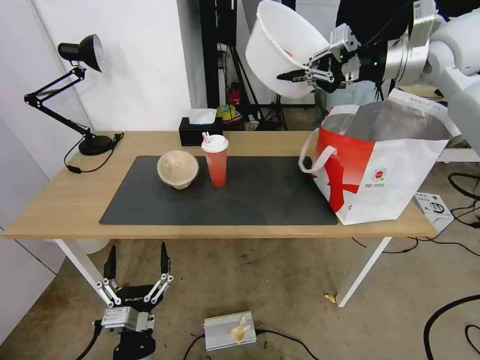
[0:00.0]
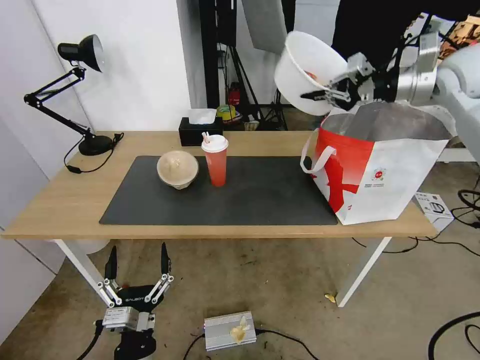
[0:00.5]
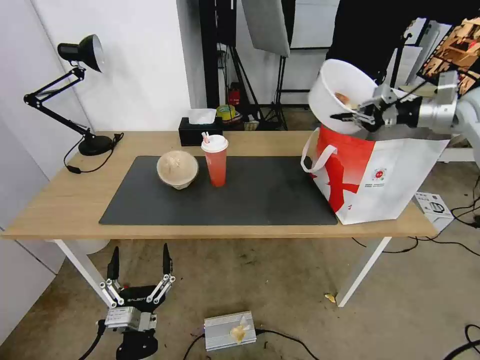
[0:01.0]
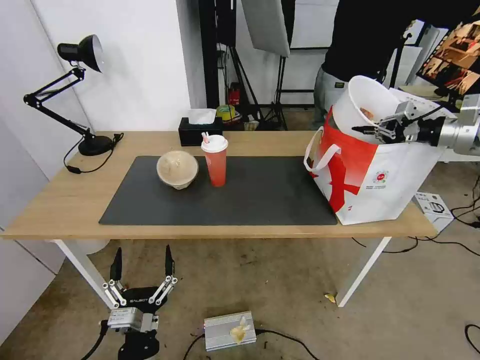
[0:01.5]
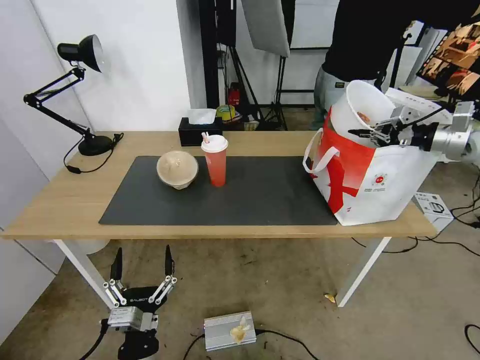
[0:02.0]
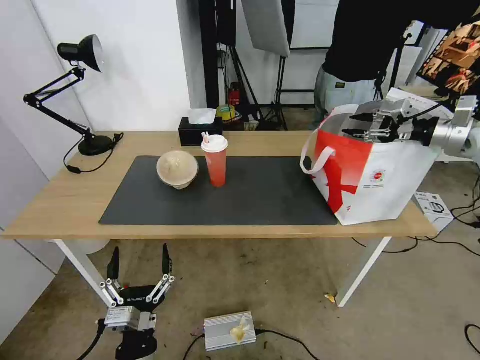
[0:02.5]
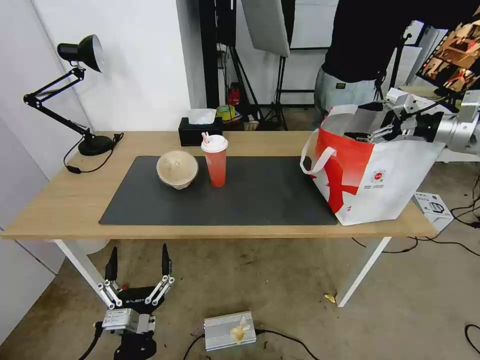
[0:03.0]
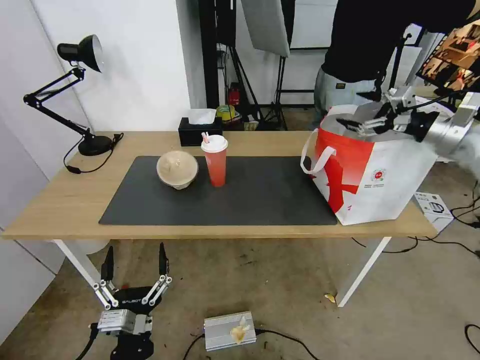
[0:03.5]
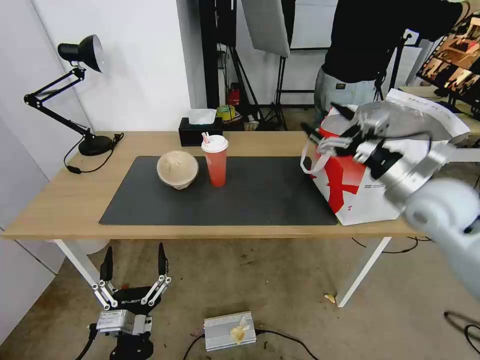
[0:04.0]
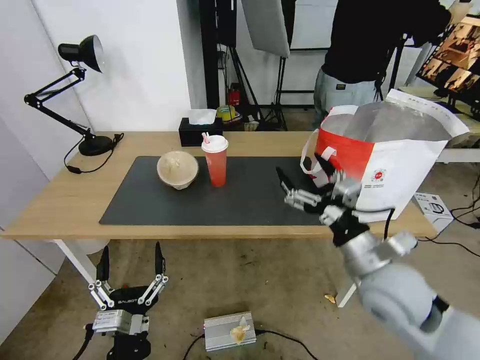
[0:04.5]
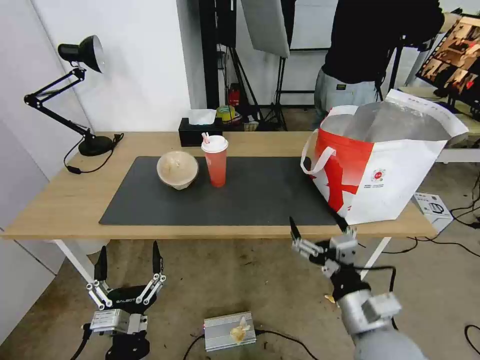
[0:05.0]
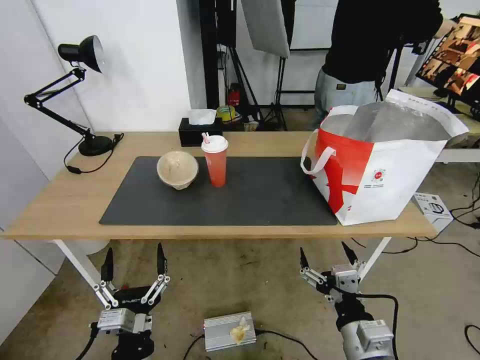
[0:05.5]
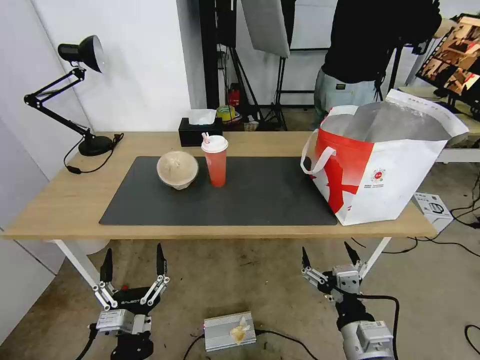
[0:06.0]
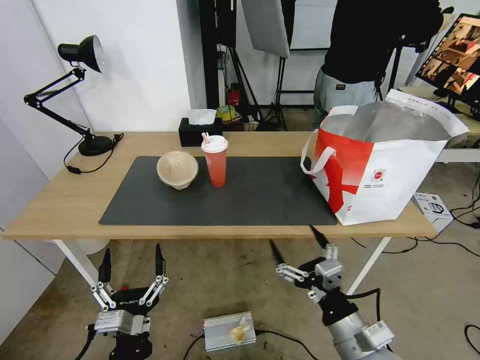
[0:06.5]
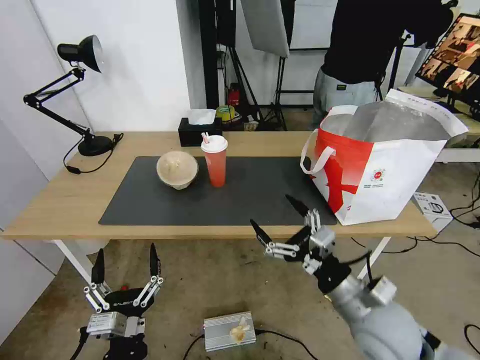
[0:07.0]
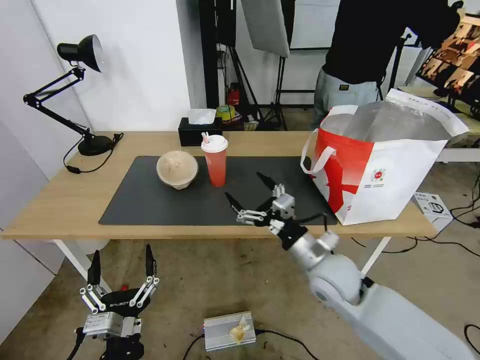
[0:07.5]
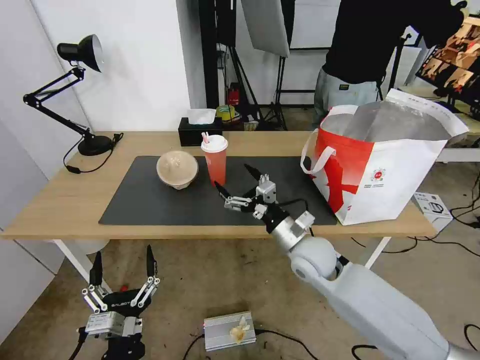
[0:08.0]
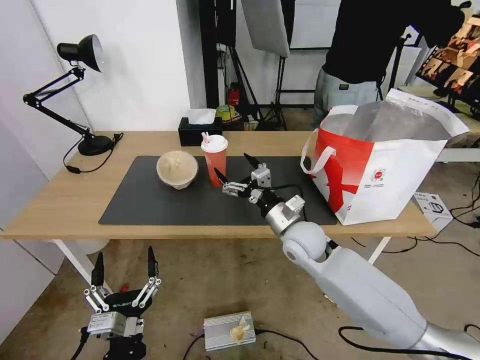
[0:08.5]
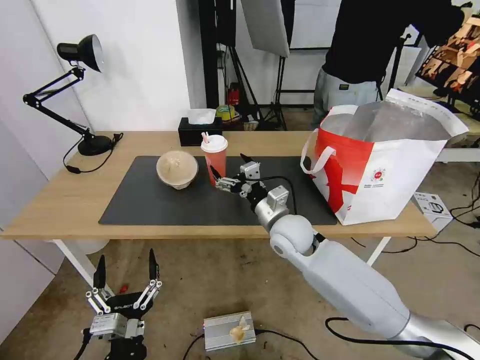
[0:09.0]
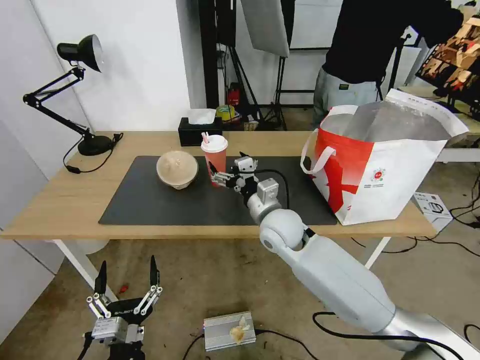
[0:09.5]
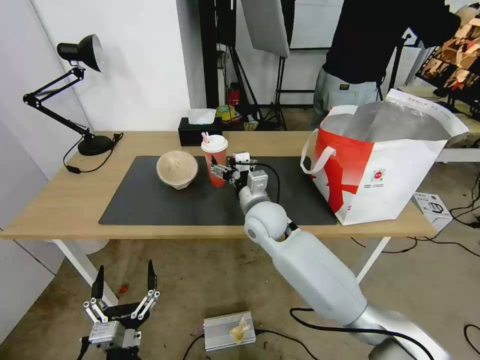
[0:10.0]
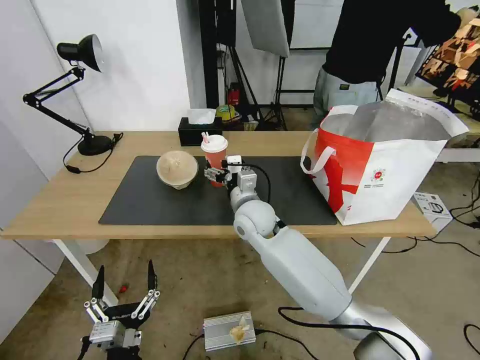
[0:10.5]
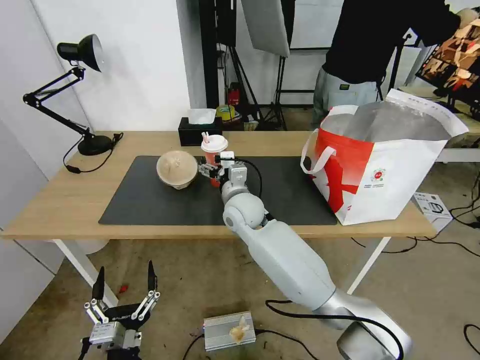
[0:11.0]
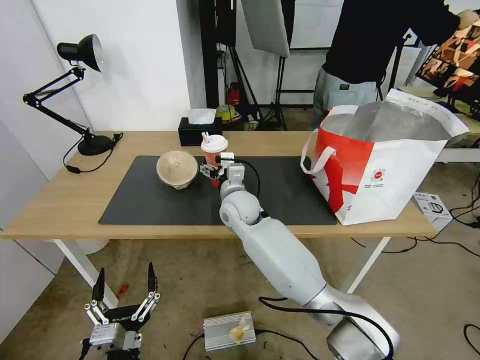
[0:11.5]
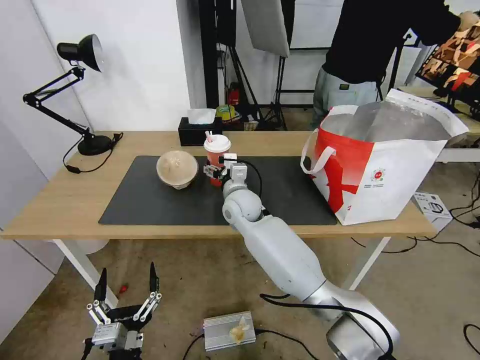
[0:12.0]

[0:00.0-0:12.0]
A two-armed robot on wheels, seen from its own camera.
Task of the whole recording: Pick up the trash from the table and place it into the takeout bag.
0:00.0 to 0:02.0: The right gripper goes roughly 25 cm to the right and downward.
0:02.0 to 0:04.0: The right gripper heads to the left and backward, covering about 25 cm, and opens up.
0:04.0 to 0:06.0: The right gripper shifts approximately 30 cm backward, downward and to the left.
0:06.0 to 0:08.0: The right gripper moves forward, approximately 25 cm.
0:08.0 to 0:10.0: The right gripper goes roughly 10 cm to the left and forward.
0:10.0 to 0:12.0: The right gripper goes some 10 cm forward and to the left.

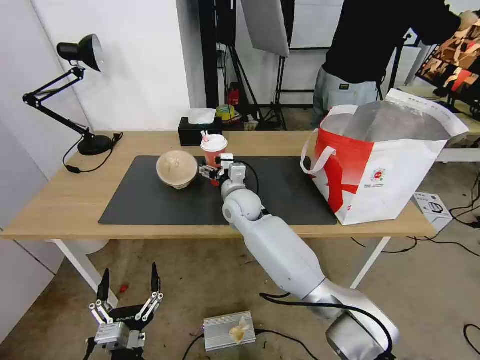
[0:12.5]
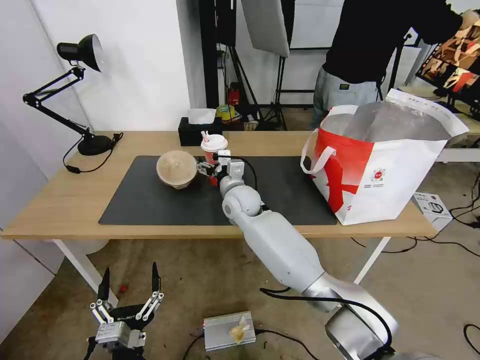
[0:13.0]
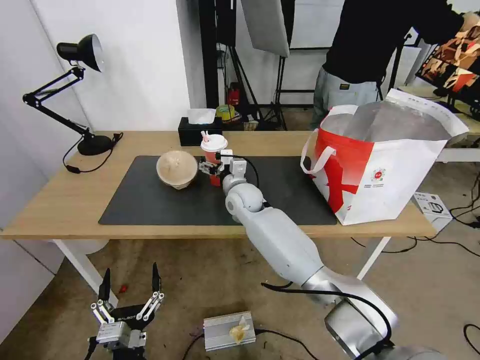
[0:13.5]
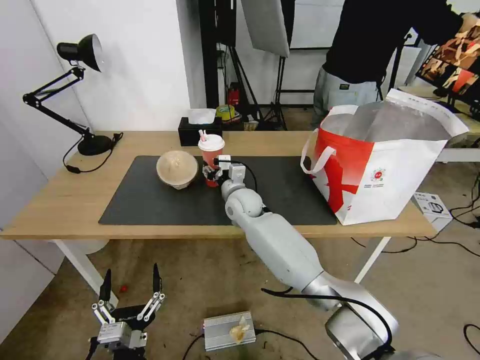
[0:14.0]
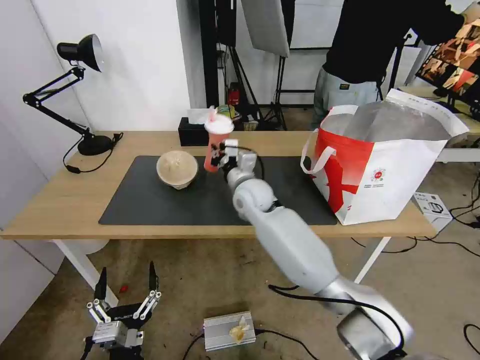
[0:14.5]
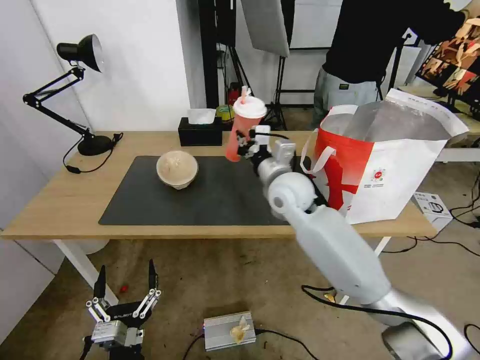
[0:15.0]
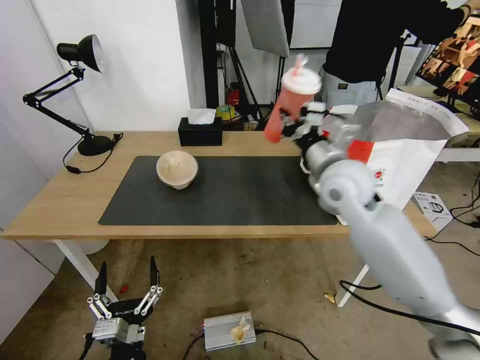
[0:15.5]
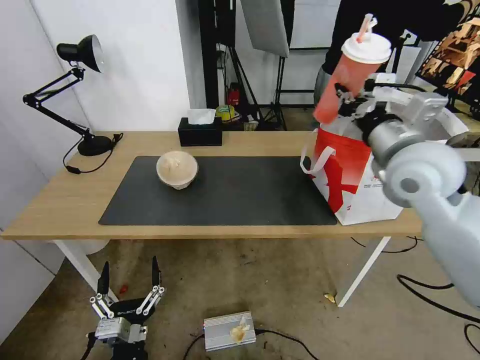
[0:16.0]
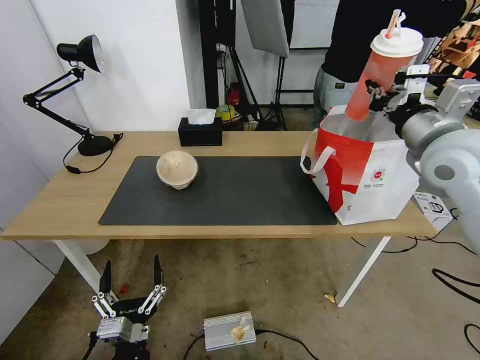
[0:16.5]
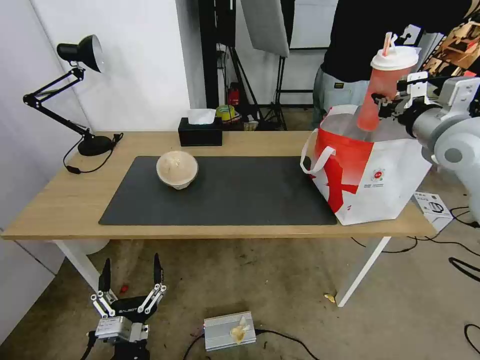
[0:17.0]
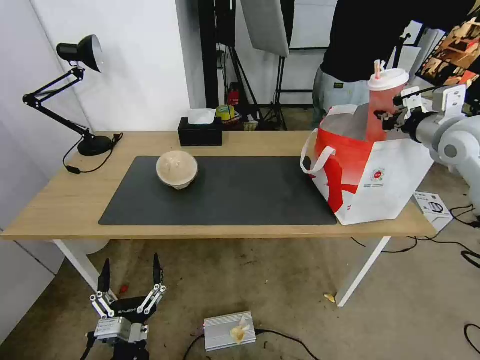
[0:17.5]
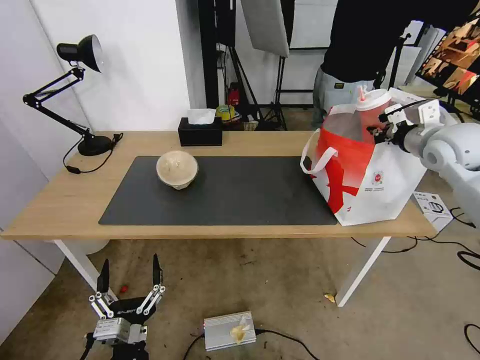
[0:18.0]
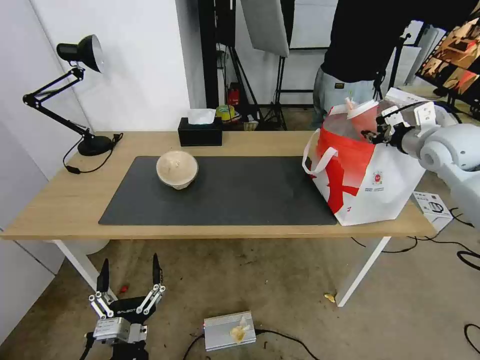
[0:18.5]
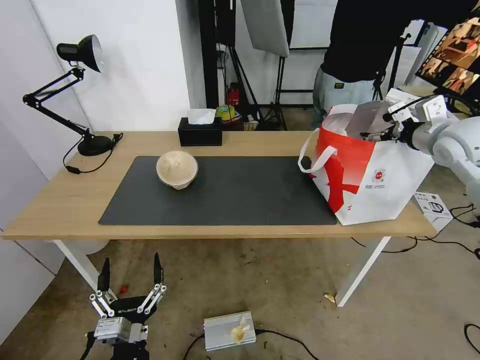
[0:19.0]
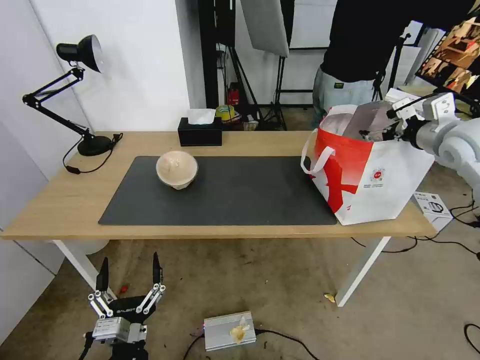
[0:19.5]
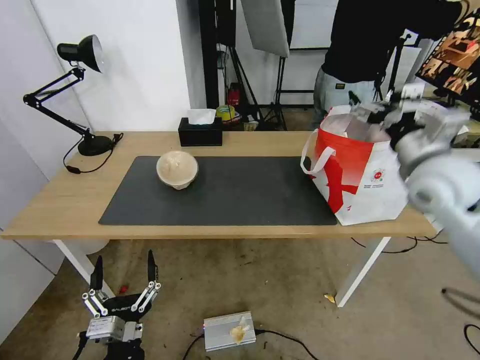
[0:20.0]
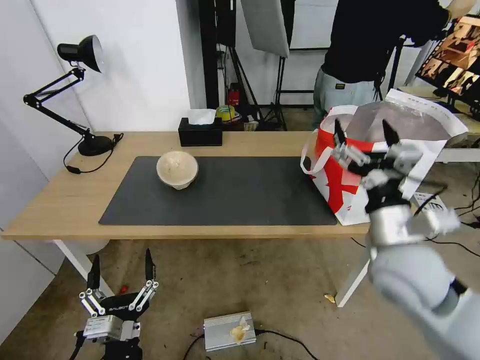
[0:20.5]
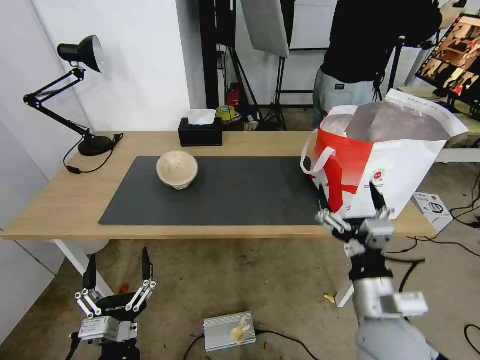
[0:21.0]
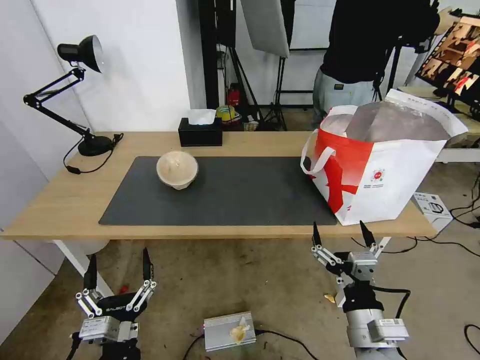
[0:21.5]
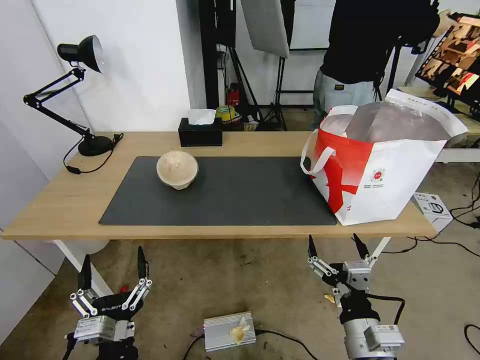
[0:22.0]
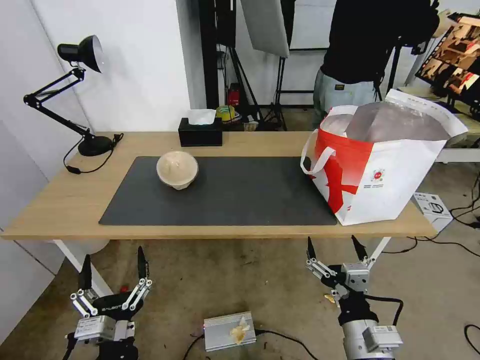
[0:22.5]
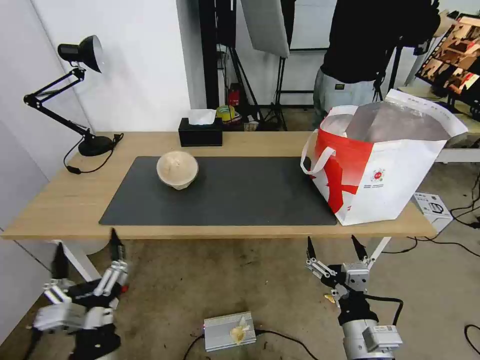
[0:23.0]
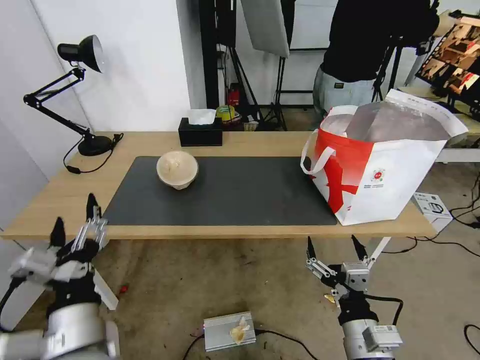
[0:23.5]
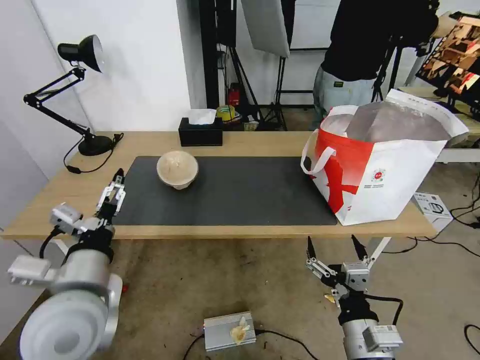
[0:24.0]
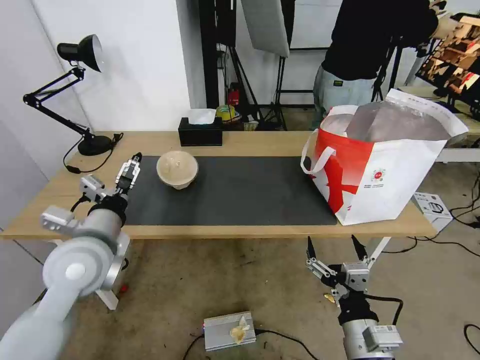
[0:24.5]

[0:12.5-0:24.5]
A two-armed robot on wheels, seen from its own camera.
Task of the whole recording: Pick up the trash from the table and place it into the takeout bag.
0:12.5 to 0:14.5: The right gripper moves roughly 5 cm, and closes up.
0:14.5 to 0:16.5: The right gripper moves to the right and upward, approximately 35 cm.
0:16.5 to 0:18.5: The right gripper is displaced forward and to the right by approximately 15 cm.
0:18.5 to 0:20.5: The right gripper shifts about 25 cm backward, to the left and downward, and opens up.
0:20.5 to 0:22.5: The right gripper is displaced backward and downward by roughly 20 cm.
0:22.5 to 0:24.5: The left gripper goes about 25 cm forward and upward.

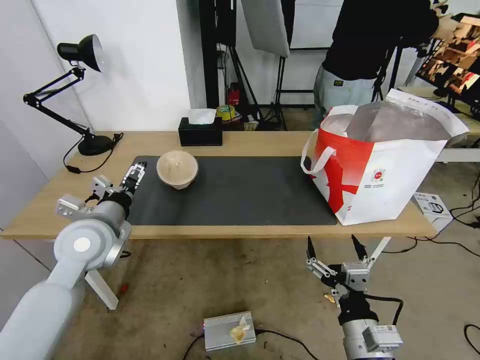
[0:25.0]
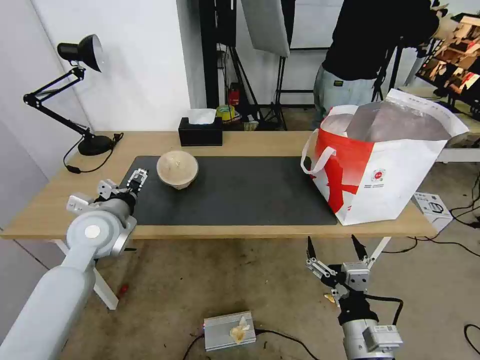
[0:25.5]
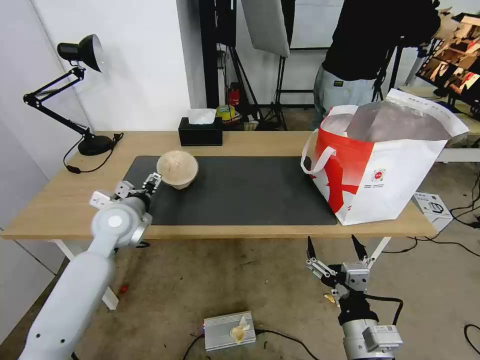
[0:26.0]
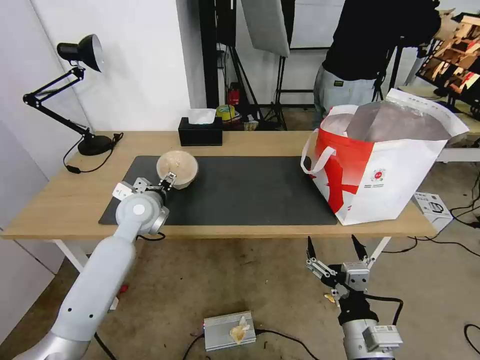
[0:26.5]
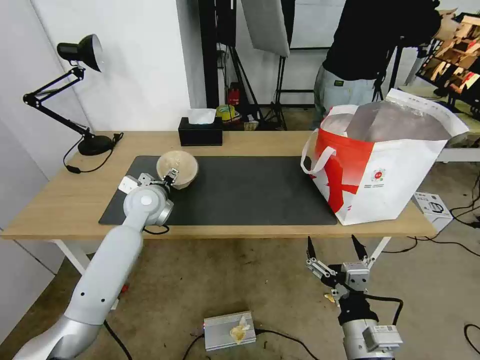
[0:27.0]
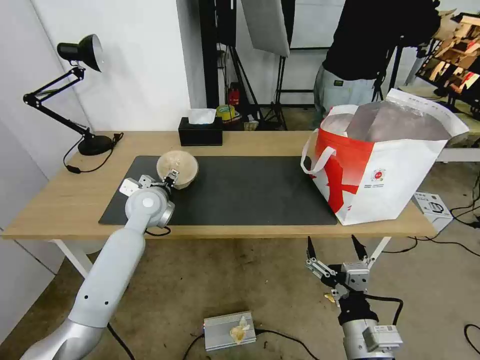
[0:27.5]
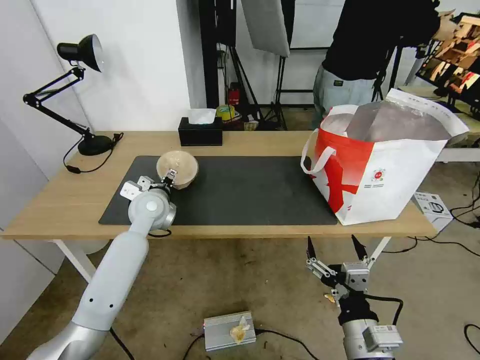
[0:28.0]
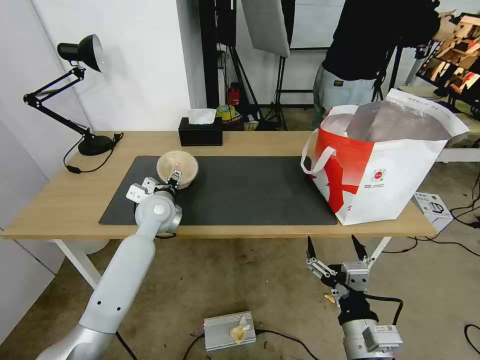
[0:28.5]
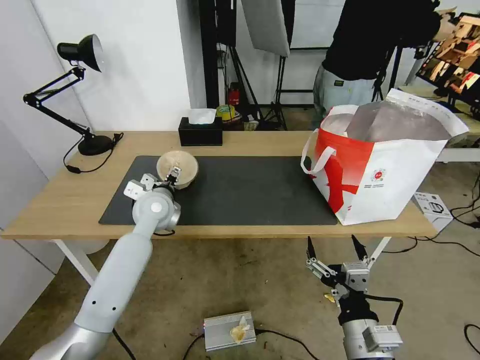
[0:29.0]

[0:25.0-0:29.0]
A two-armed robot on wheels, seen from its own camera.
Task of the whole recording: Pick up the trash from the table and place it into the takeout bag.
0:25.0 to 0:27.0: The left gripper heads forward and to the right, covering some 15 cm.
0:27.0 to 0:29.0: The grippers move only a little.
